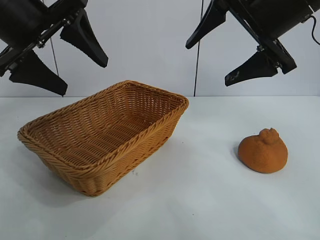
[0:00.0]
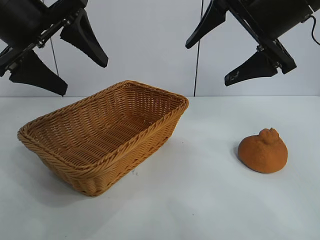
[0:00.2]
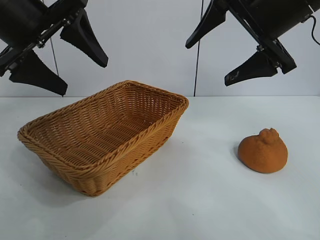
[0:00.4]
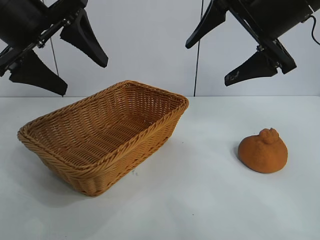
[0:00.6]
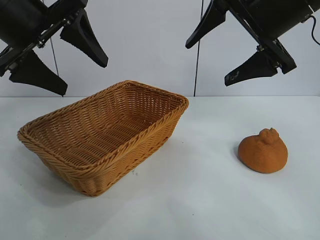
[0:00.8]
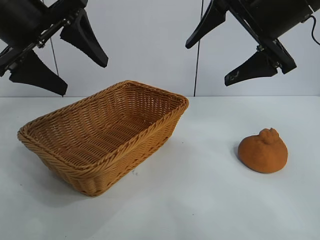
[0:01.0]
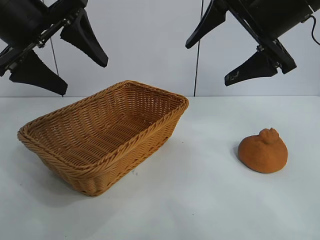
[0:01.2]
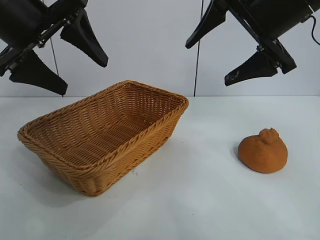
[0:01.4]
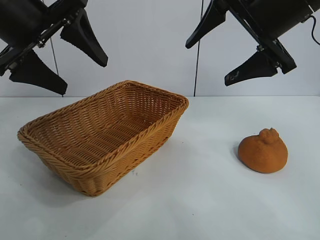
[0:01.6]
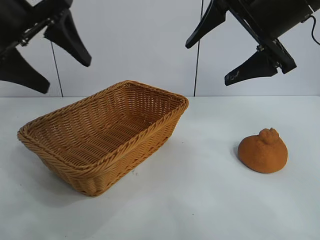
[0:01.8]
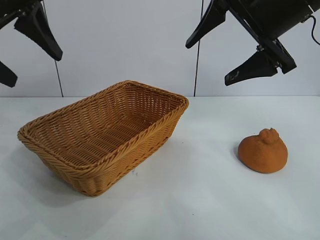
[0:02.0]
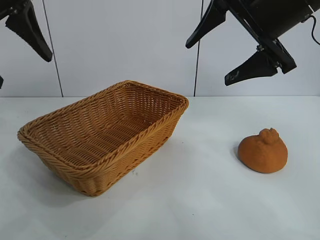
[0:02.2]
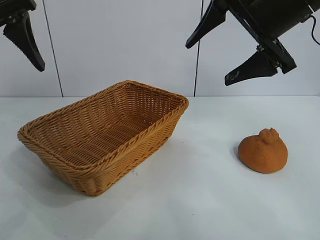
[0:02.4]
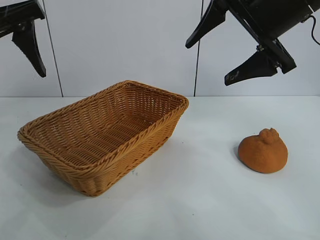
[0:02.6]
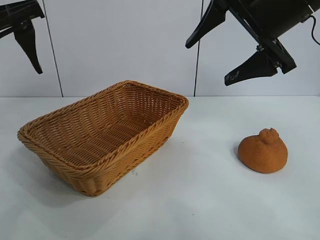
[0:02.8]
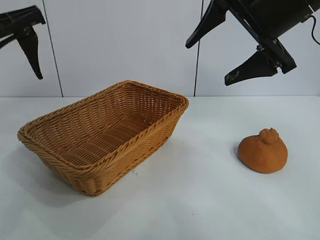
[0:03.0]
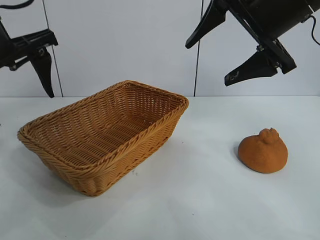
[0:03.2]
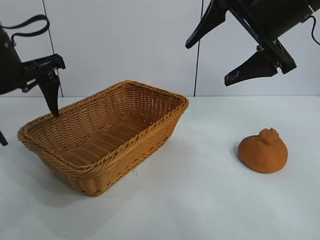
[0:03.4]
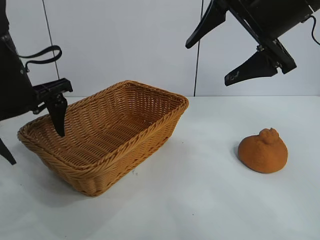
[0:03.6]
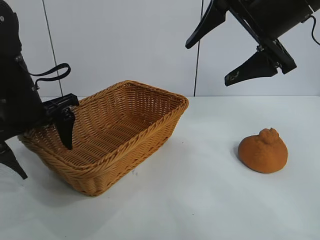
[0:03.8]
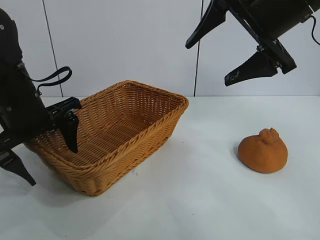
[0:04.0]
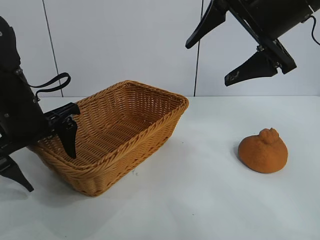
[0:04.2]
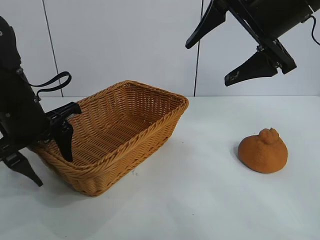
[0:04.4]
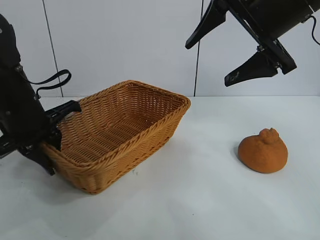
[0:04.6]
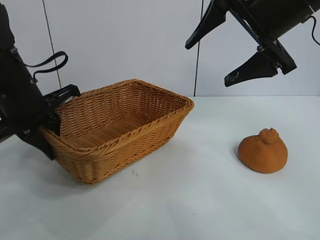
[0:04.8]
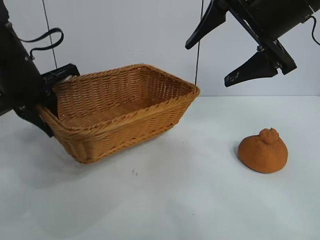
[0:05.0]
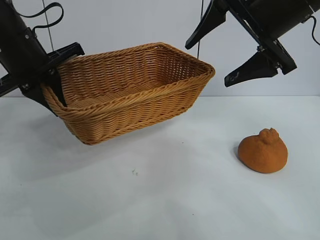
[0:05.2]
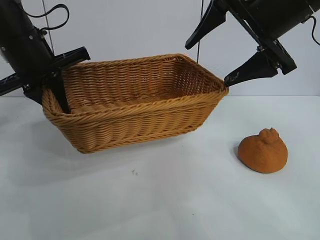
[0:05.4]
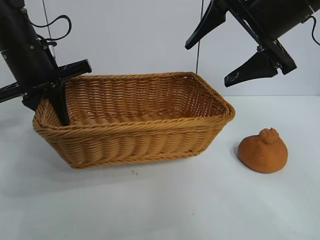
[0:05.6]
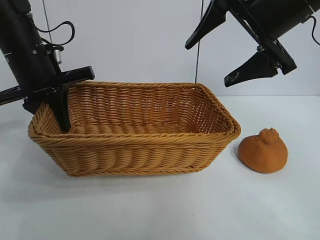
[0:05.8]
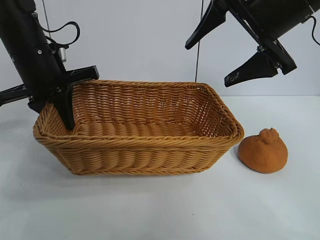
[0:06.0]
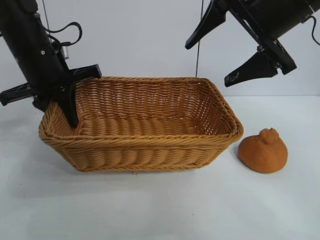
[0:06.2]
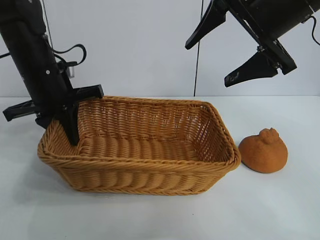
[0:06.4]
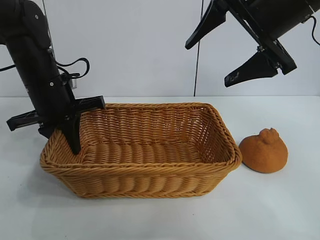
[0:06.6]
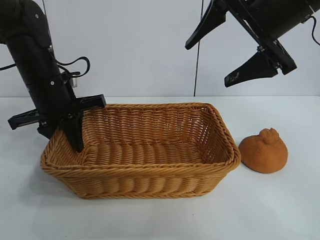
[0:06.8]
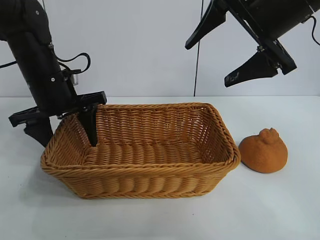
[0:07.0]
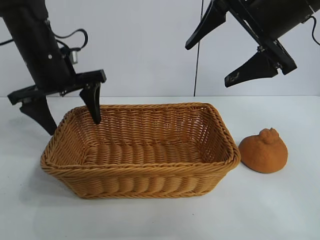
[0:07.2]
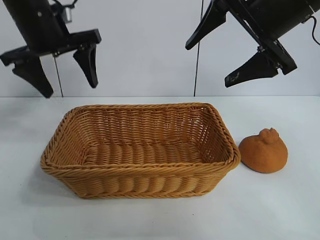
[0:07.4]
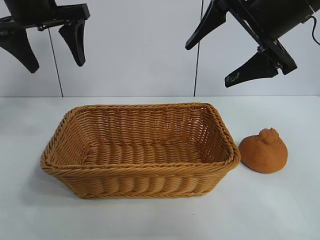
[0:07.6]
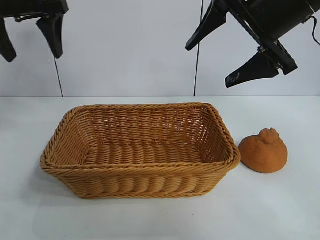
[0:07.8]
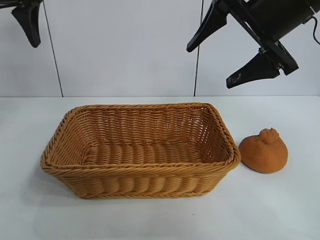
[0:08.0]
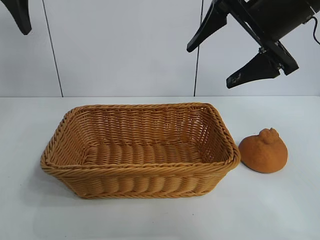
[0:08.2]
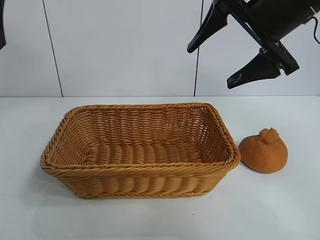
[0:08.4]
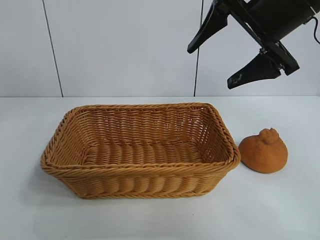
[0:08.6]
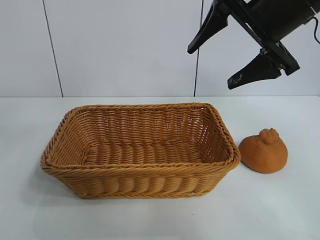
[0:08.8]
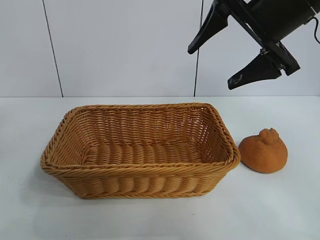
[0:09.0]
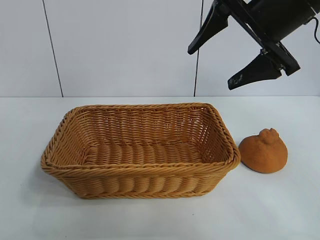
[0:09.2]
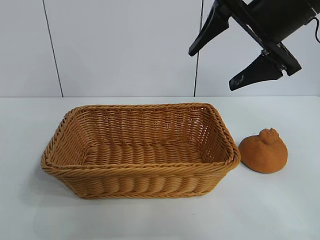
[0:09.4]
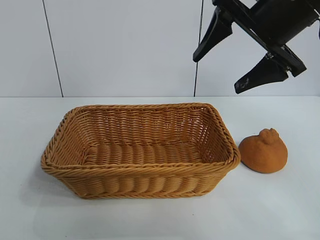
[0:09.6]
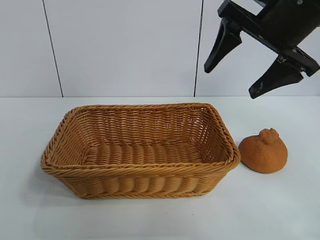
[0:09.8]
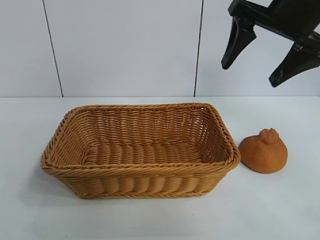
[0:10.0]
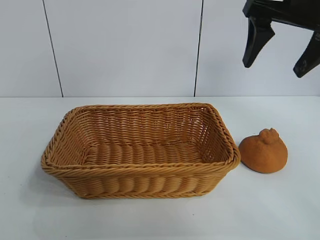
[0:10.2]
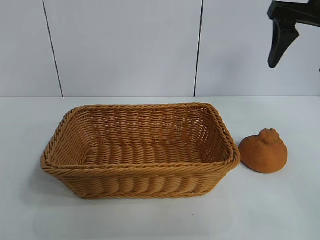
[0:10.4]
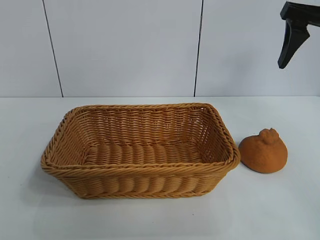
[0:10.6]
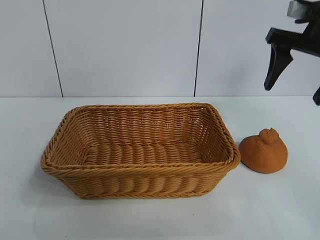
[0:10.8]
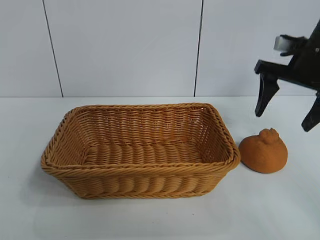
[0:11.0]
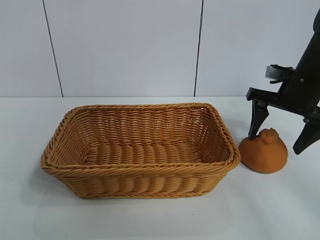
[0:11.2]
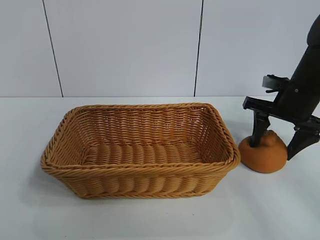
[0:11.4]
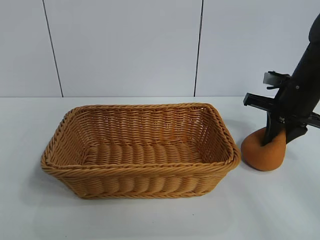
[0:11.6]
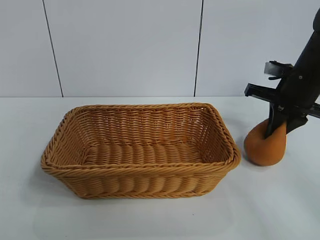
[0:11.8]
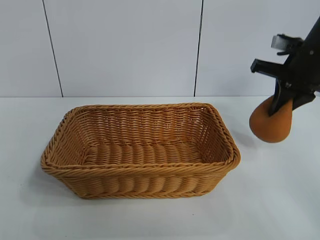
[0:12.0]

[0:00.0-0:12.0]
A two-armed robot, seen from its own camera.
Task of the whole recording: pick up the orange and put it into the basket.
Step, 0:01.6 to 0:04.6: Grasp the basket with left gripper.
Step, 0:04.8 to 0:07.0: Place the basket in the center of view with left gripper.
Step, 0:07.2 to 0:11.6: Grasp the orange with right gripper.

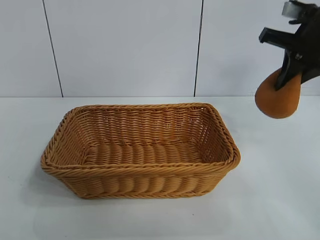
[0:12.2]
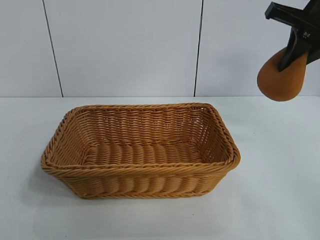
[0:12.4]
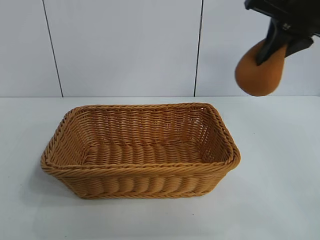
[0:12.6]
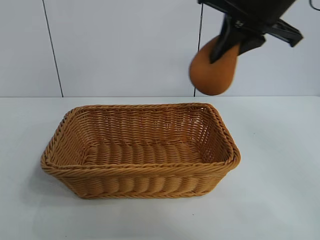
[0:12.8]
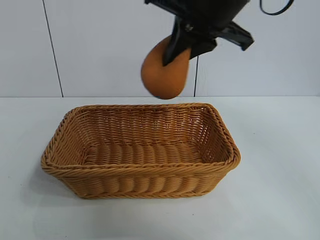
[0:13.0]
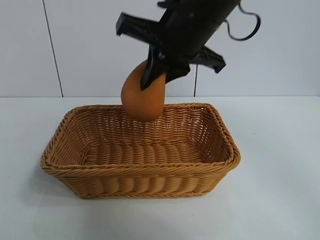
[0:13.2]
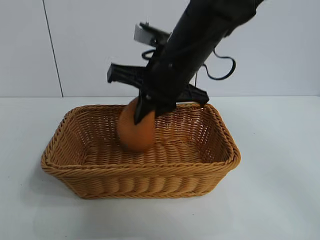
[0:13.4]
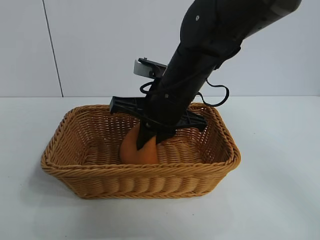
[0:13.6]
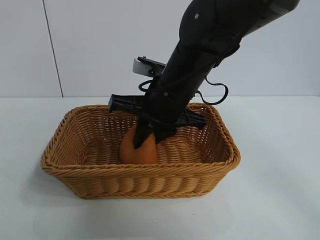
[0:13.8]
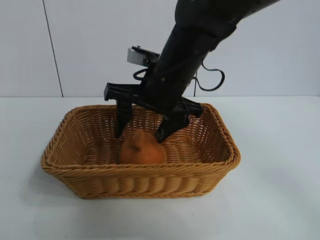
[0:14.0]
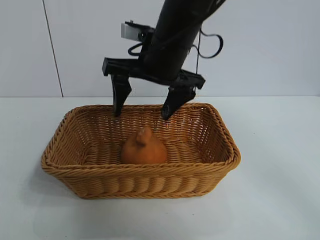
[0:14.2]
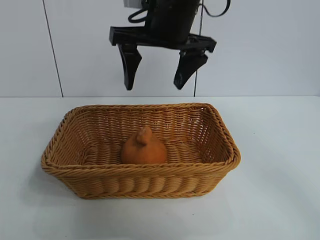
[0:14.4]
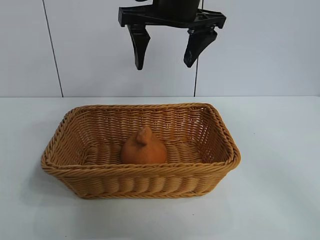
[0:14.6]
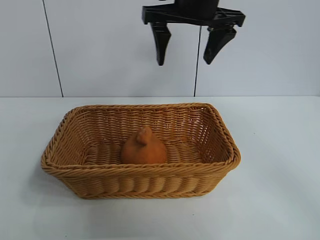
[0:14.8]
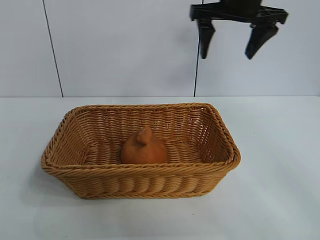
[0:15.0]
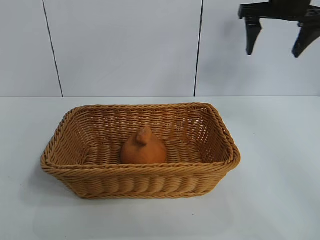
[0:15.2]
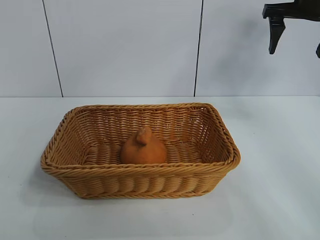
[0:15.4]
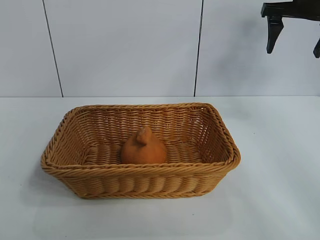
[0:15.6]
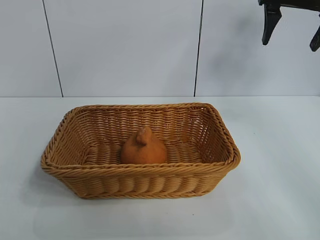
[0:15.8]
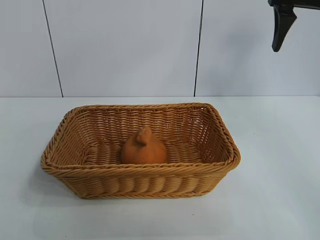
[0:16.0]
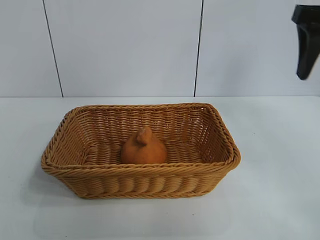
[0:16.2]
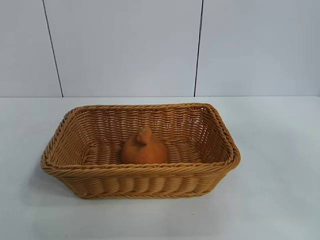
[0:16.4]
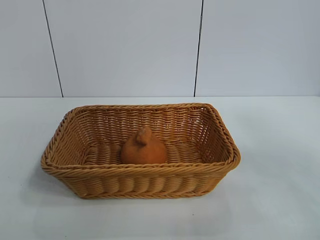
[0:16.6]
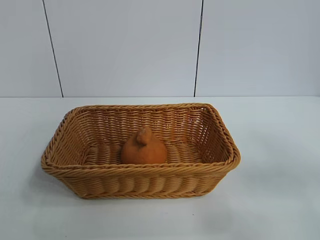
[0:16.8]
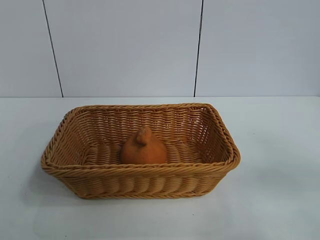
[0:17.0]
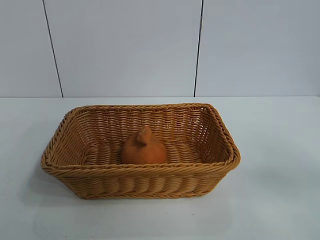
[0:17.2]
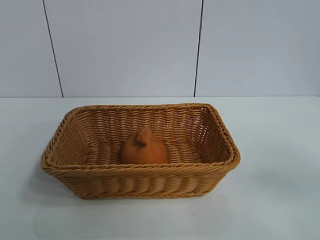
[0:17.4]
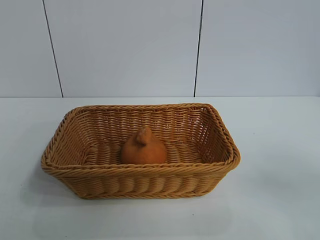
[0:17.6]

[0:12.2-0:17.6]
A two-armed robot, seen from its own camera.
Task of the whole recording: pick up the orange and put it into the basket.
Step, 0:12.2 to 0:14.0: Place the orange in the basket with right gripper.
